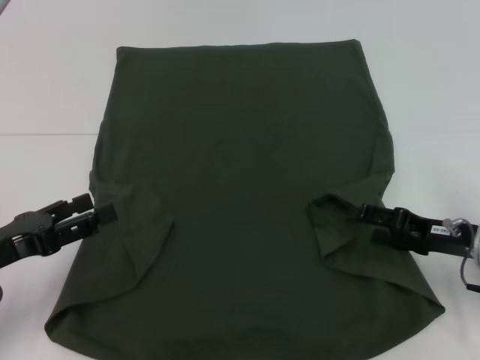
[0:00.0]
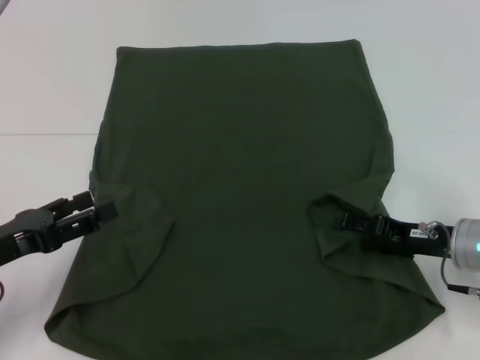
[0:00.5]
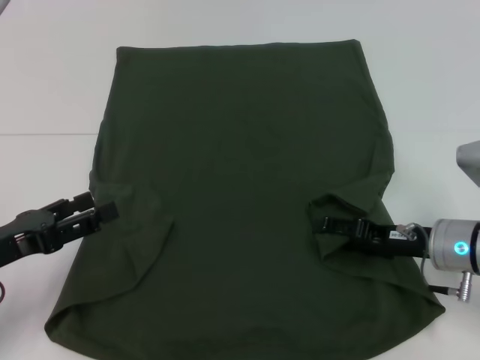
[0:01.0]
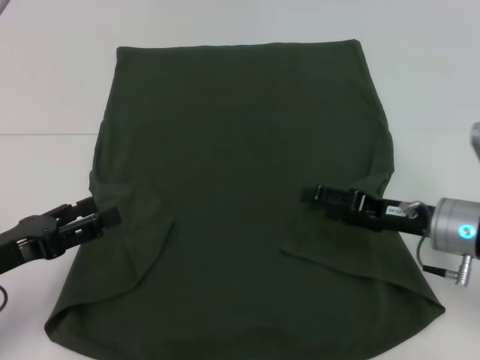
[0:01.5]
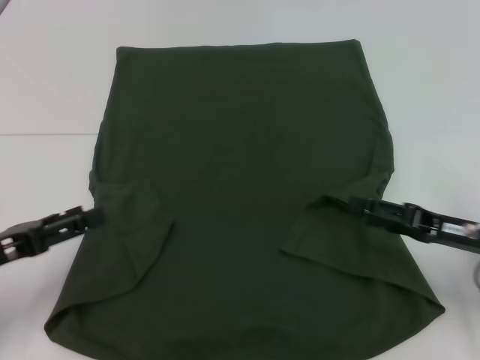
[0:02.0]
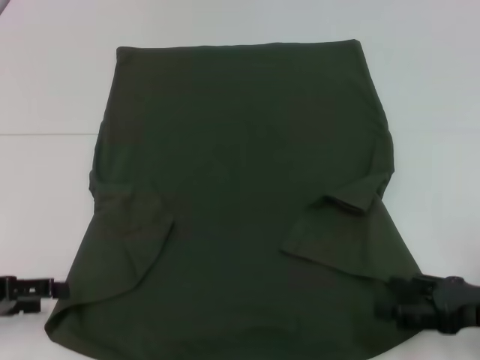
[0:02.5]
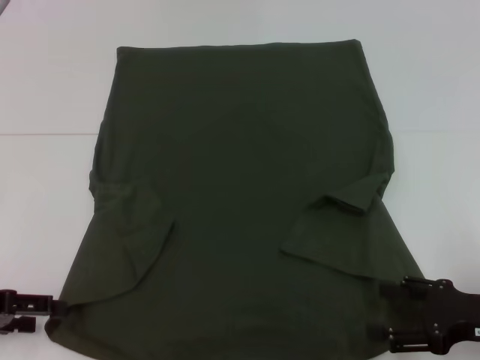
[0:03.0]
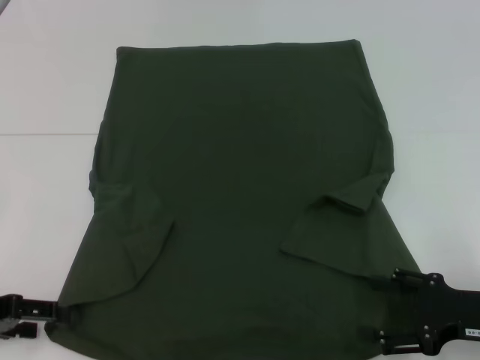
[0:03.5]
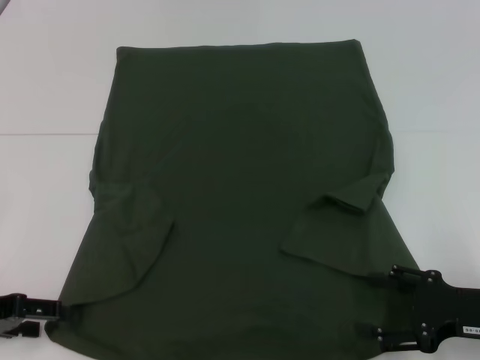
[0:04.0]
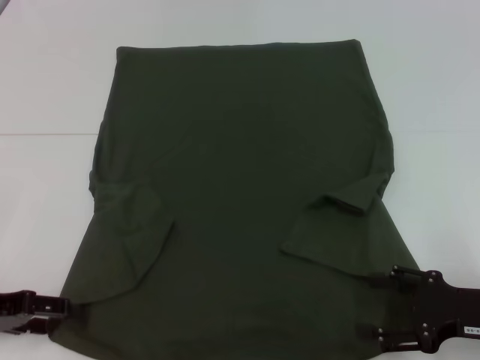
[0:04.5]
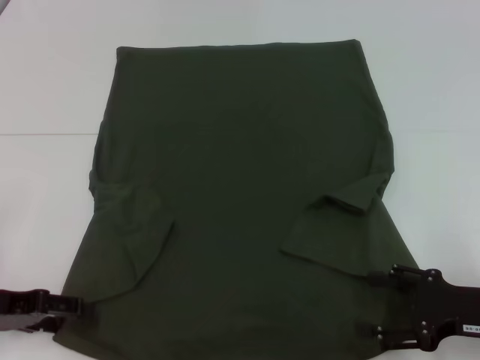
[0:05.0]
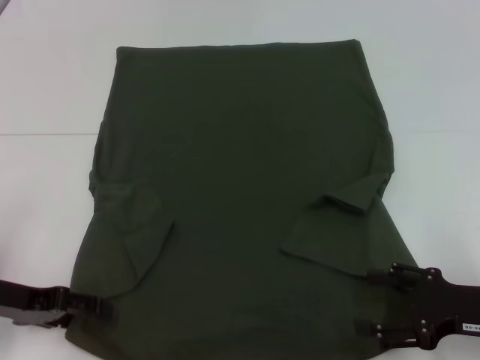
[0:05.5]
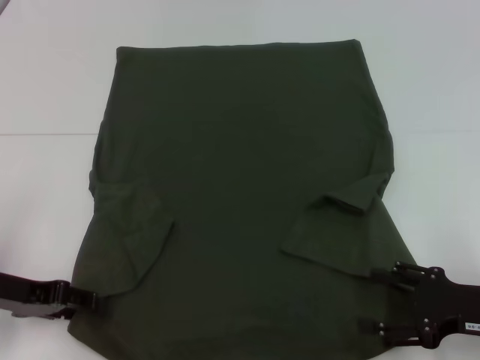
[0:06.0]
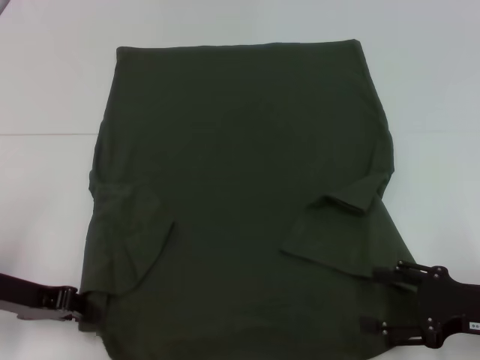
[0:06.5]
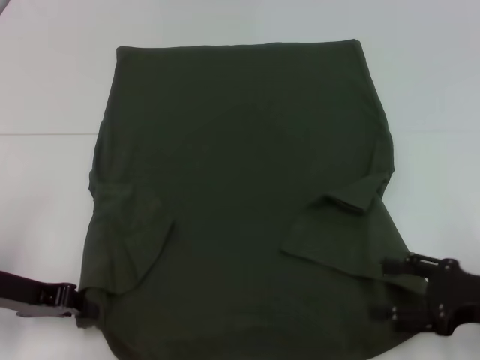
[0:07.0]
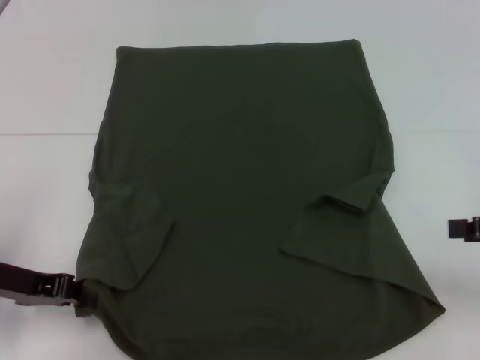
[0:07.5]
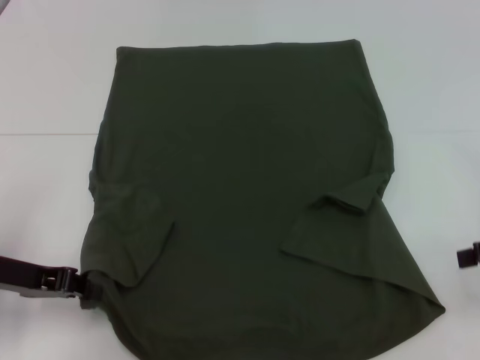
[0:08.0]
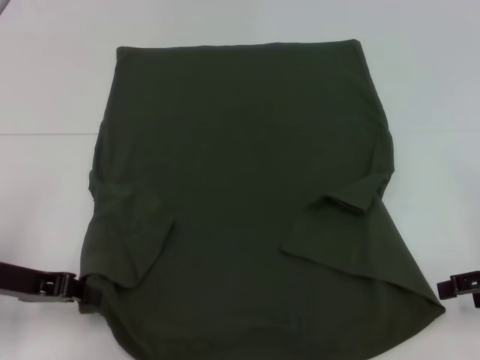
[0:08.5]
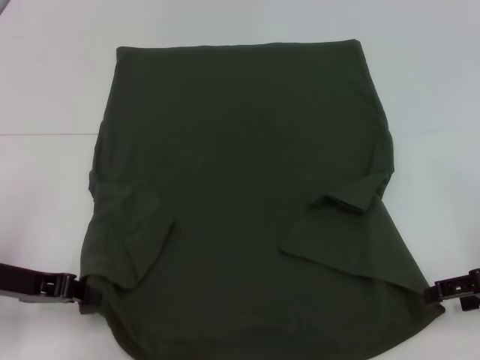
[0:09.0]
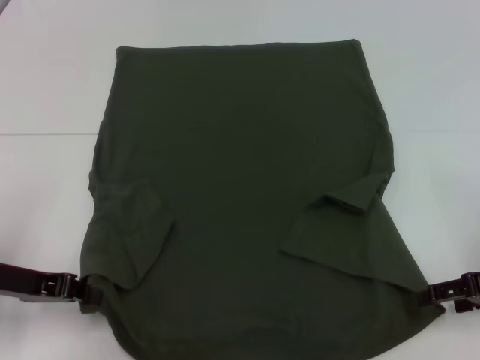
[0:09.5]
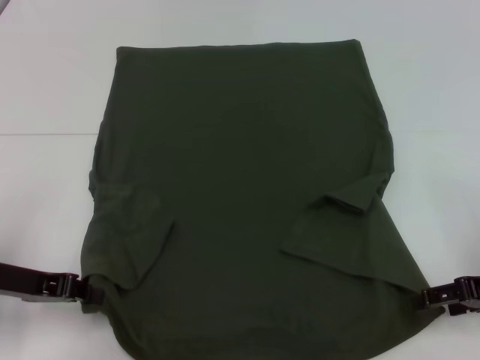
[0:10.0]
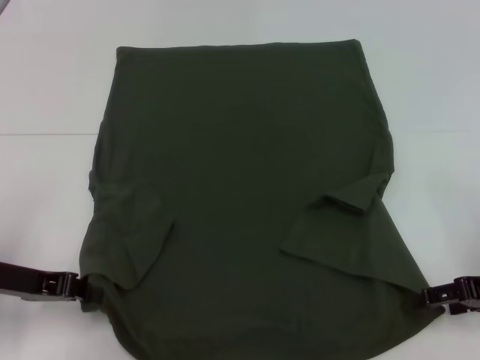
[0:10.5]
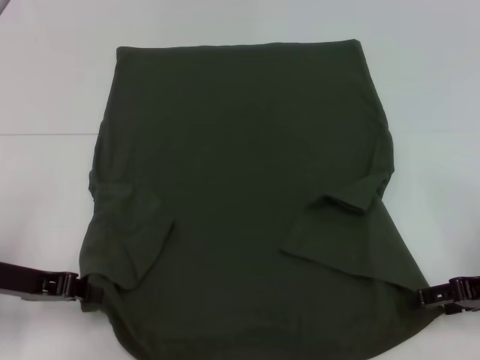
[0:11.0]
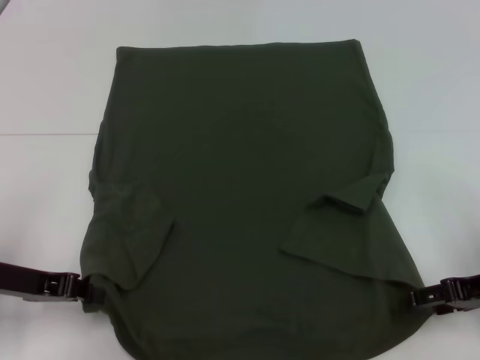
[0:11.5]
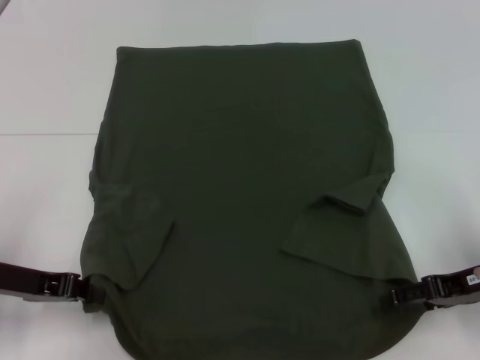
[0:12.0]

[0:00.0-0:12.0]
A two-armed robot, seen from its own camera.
Step, 0:02.0 to 0:06.5: Grab the bottom left corner with your left hand.
0:00.0 to 0:02.0: The grippers make only small movements.
0:02.0 to 0:04.0: The right gripper shifts about 5 cm backward.
0:04.0 to 0:06.0: The grippers make only small movements.
0:06.0 to 0:08.0: The left gripper closes up; the right gripper heads upward and to the right, covering about 10 cm.
0:08.0 to 0:10.0: The right gripper travels downward by some 5 cm.
0:10.0 to 0:12.0: The grippers make only small movements.

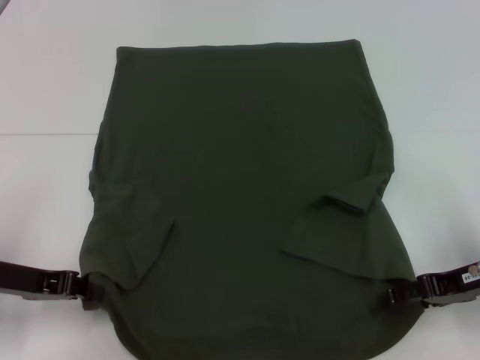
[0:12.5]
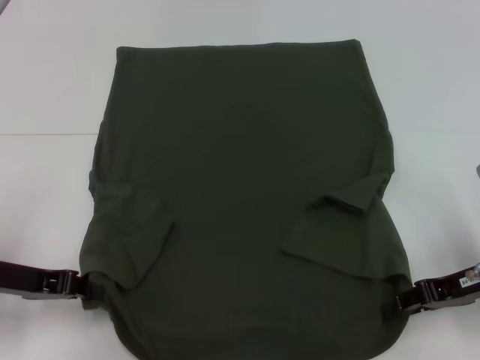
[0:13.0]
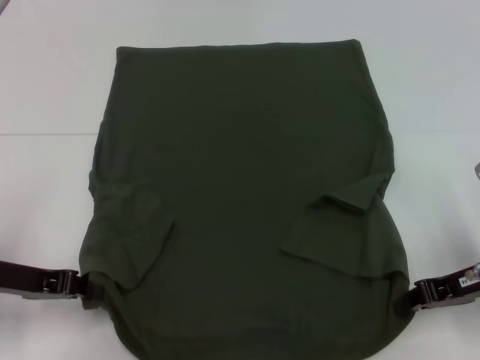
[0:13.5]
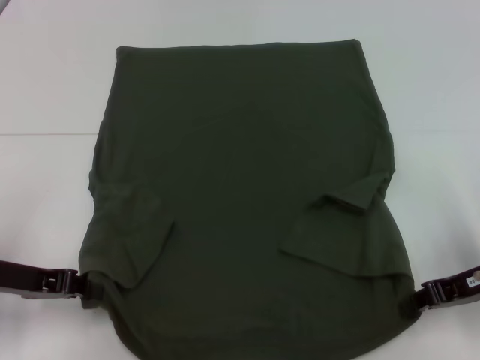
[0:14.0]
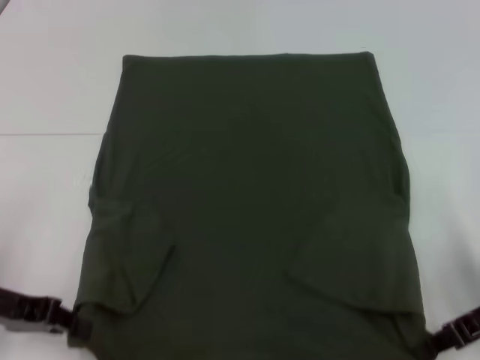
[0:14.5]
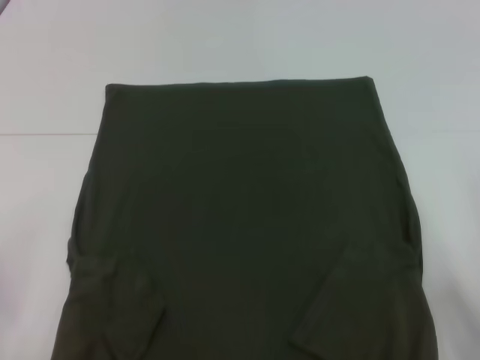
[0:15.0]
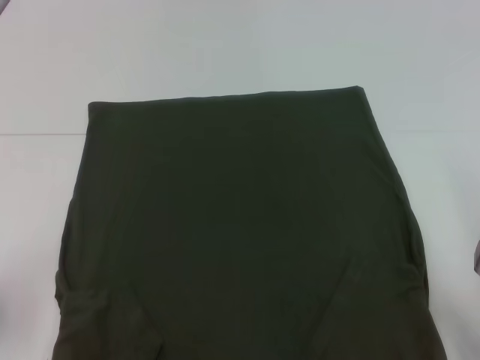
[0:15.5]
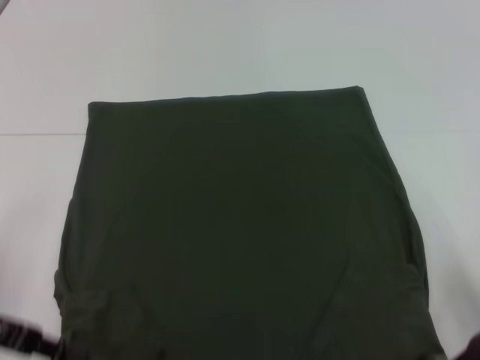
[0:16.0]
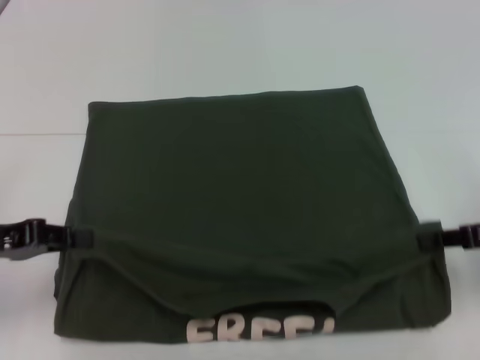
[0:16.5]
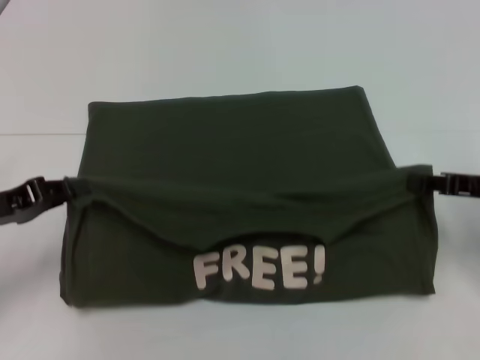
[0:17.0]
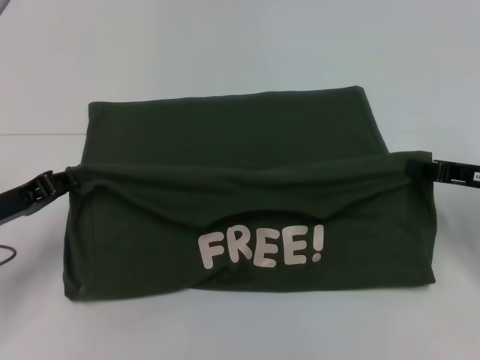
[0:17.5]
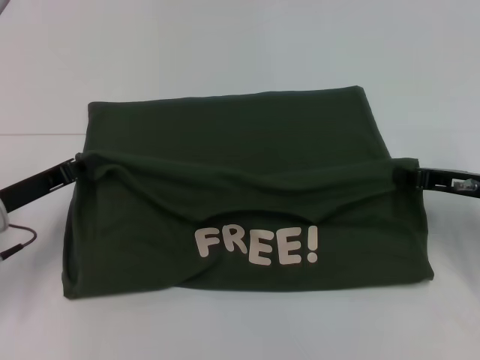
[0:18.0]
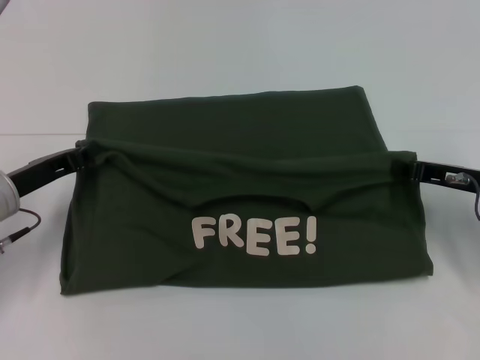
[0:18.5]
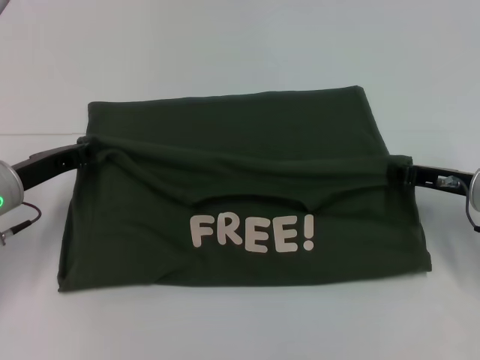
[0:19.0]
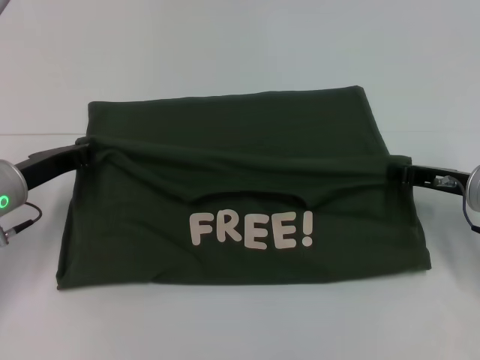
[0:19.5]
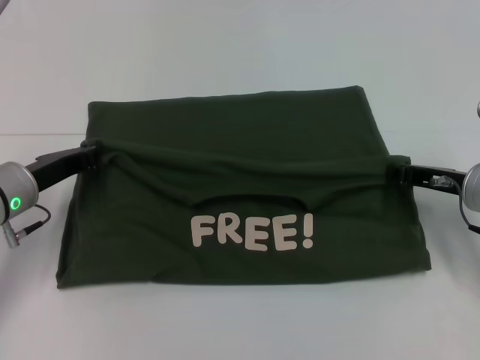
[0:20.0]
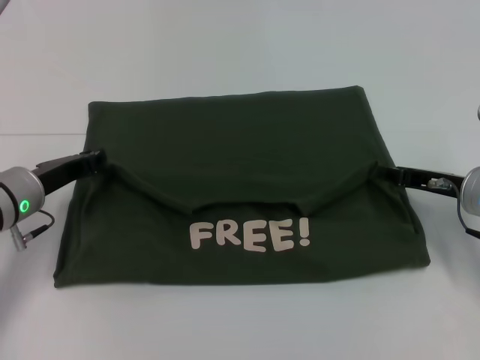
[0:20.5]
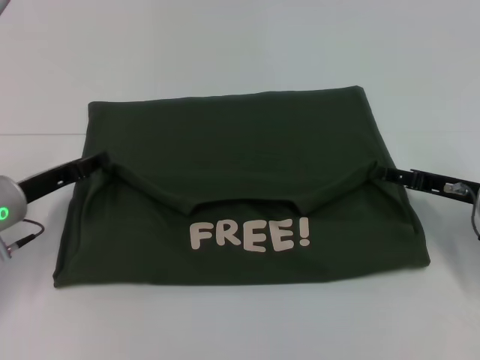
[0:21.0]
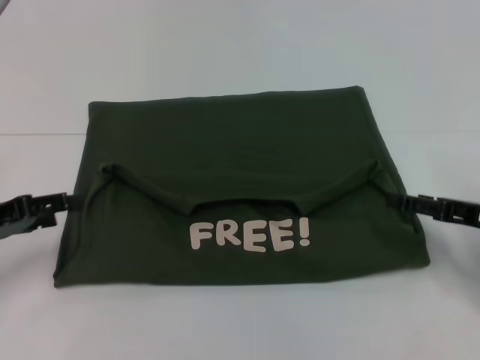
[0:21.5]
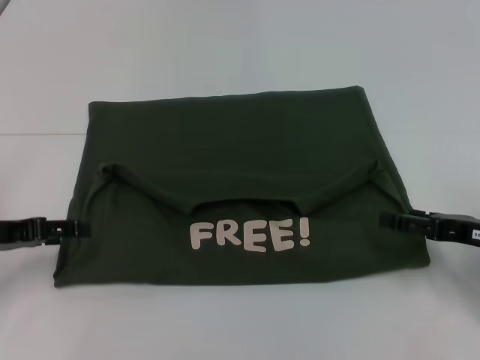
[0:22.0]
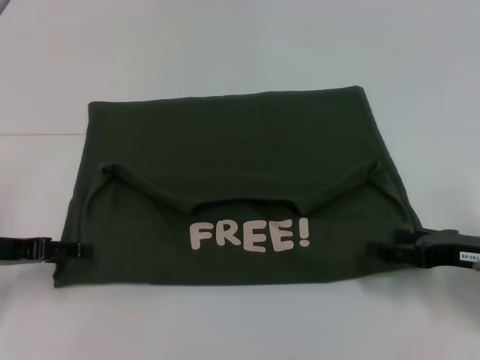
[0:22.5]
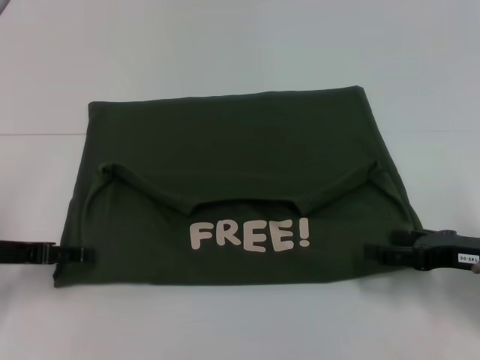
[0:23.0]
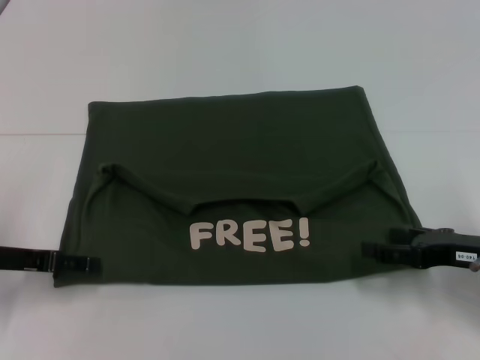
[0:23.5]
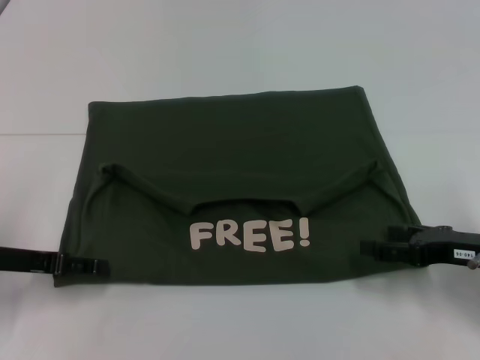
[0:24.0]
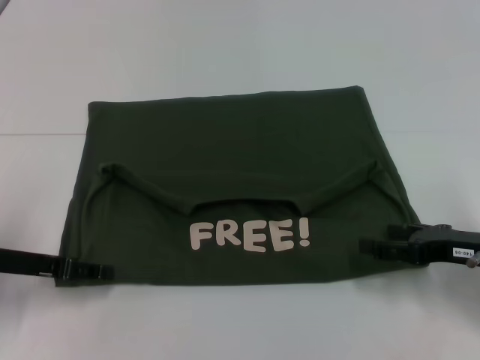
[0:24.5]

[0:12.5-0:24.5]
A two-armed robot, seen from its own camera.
Step, 0:13.5 to 0:20.5: Fold the clothes with your left hand.
Step, 0:13.5 to 0:20.5: Fold the clothes with your right hand.
0:12.5 to 0:14.5: The right gripper closes up.
0:16.5 to 0:18.5: The grippers both shift forward by roughly 5 cm.
0:18.5 to 0:20.5: The grippers move only a little.
0:20.5 to 0:22.5: The left gripper travels to the left and backward by approximately 10 cm, and opens up; the right gripper is displaced backward by about 10 cm, and opens up.
0:22.5 to 0:24.5: The grippers move only a little.

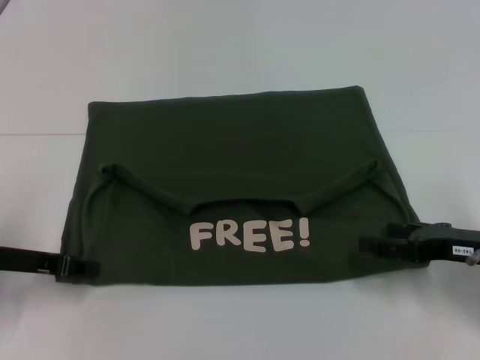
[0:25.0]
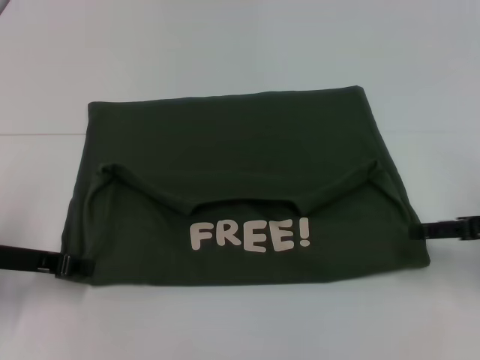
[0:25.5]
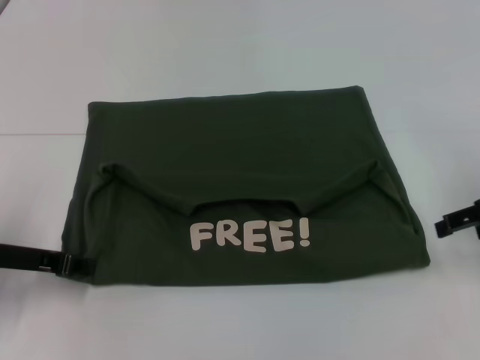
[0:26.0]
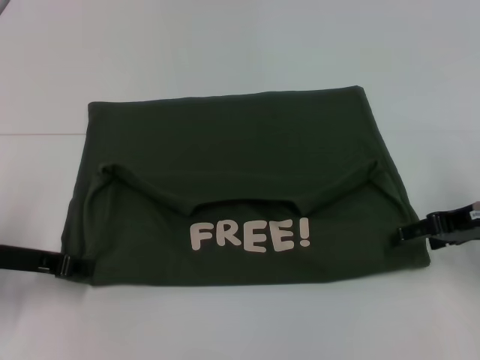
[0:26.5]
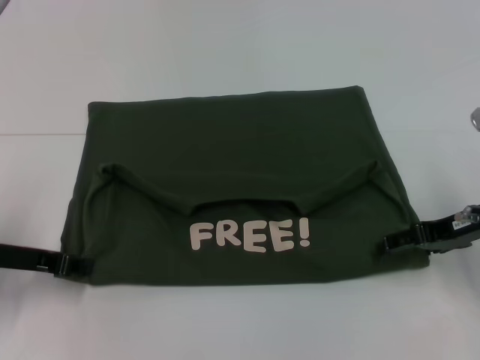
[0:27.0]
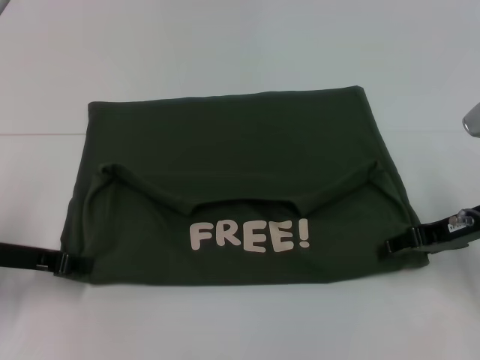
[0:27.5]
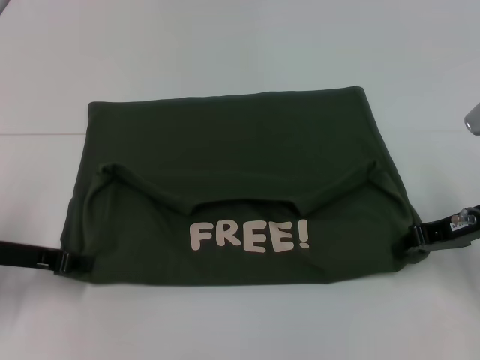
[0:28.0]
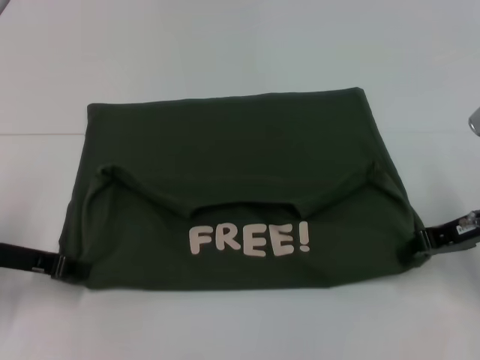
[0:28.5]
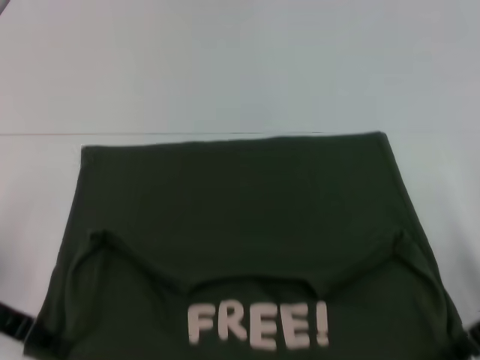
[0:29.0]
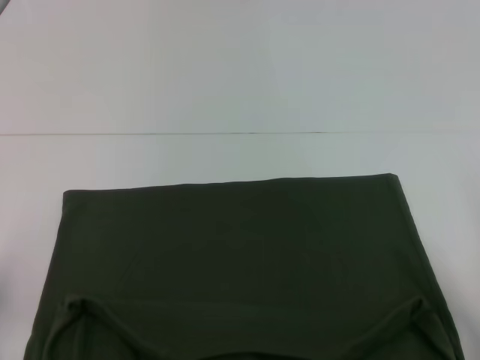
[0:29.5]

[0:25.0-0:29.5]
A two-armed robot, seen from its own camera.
0:25.0 to 0:27.0: The right gripper moves forward, about 5 cm.
0:27.0 to 0:29.5: The left gripper shifts approximately 5 cm backward. Meanwhile the right gripper heads backward, covering some 10 cm, and closes.
